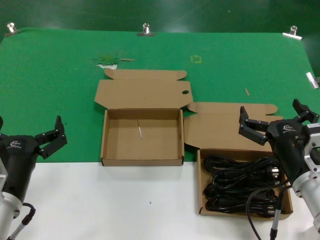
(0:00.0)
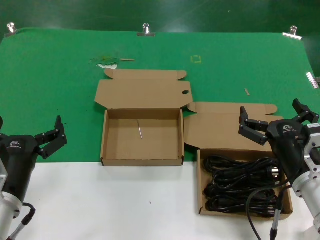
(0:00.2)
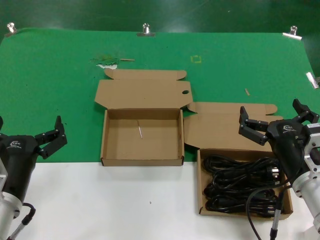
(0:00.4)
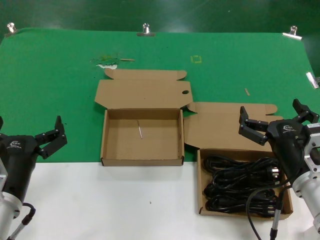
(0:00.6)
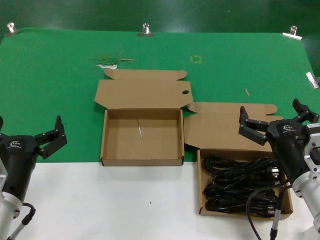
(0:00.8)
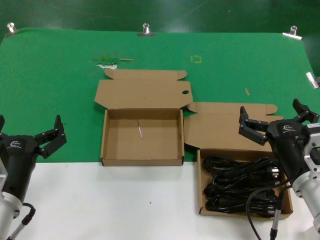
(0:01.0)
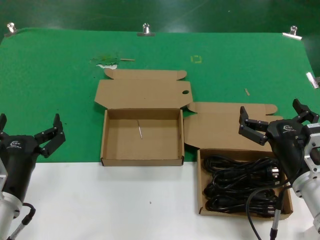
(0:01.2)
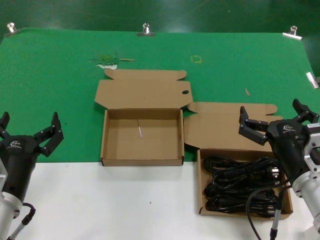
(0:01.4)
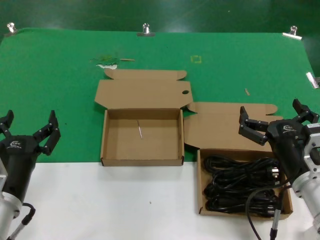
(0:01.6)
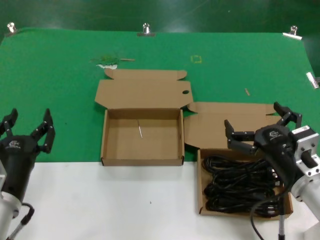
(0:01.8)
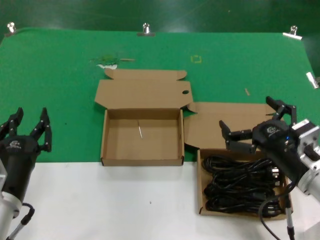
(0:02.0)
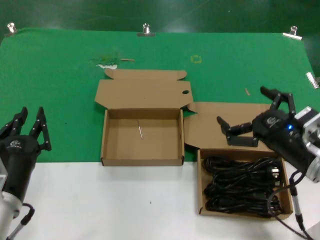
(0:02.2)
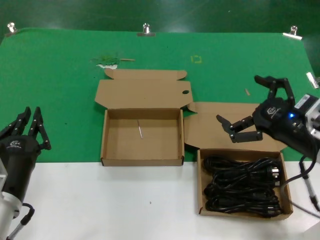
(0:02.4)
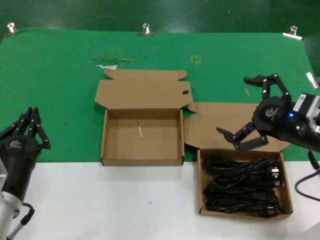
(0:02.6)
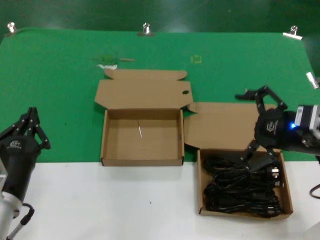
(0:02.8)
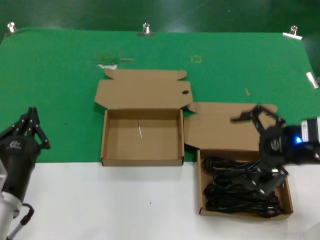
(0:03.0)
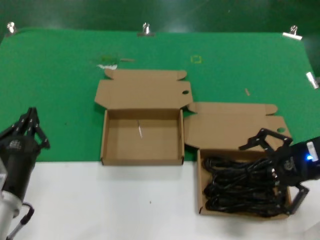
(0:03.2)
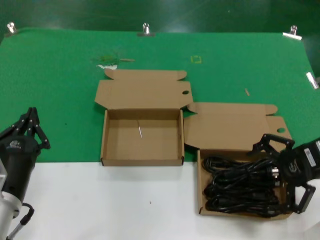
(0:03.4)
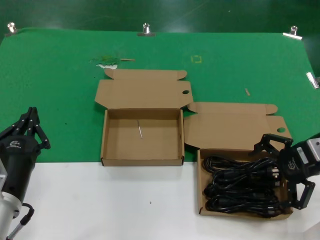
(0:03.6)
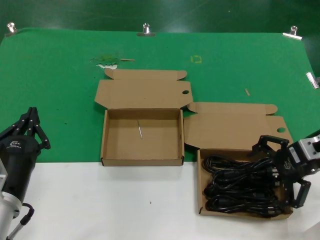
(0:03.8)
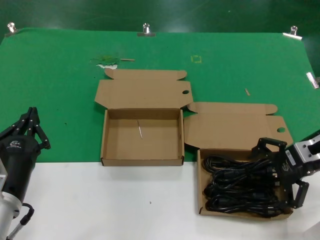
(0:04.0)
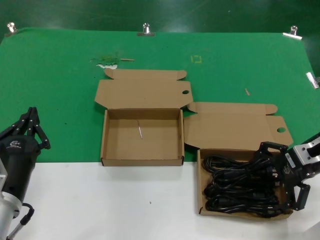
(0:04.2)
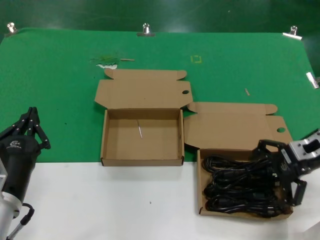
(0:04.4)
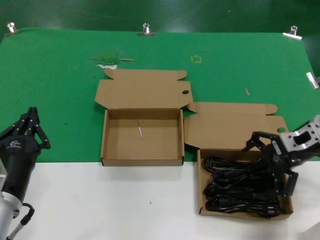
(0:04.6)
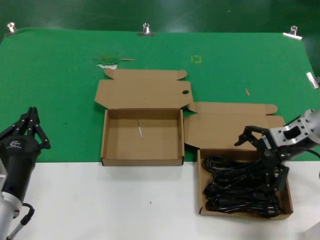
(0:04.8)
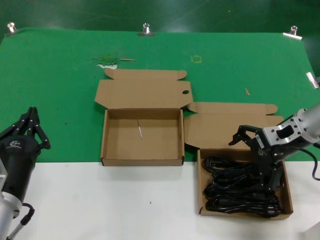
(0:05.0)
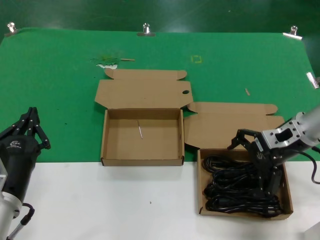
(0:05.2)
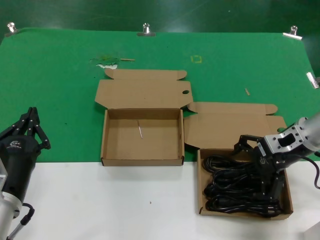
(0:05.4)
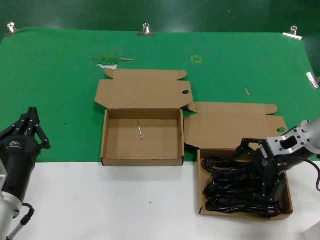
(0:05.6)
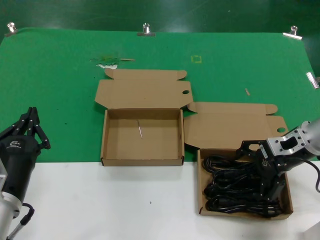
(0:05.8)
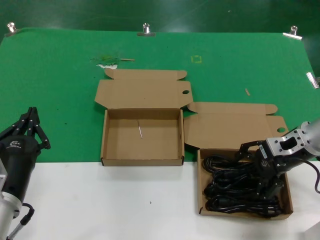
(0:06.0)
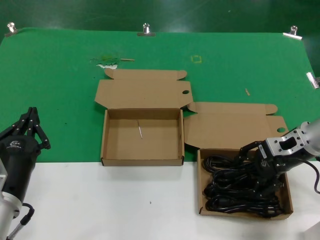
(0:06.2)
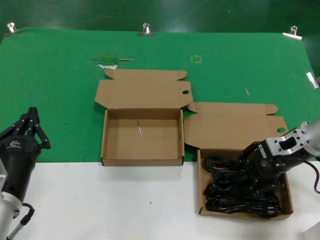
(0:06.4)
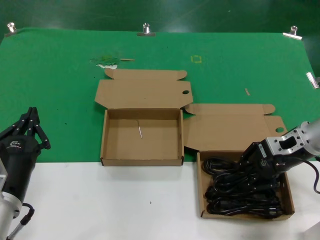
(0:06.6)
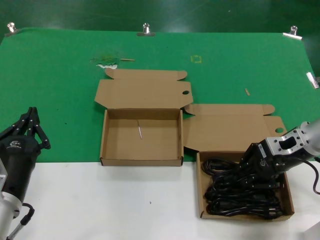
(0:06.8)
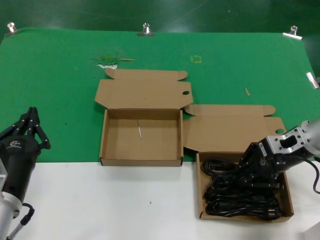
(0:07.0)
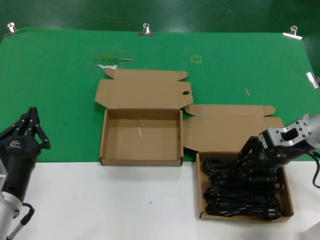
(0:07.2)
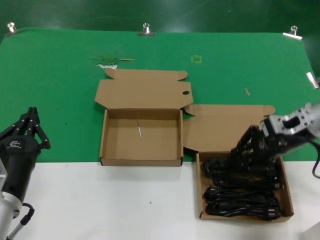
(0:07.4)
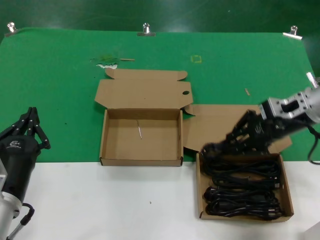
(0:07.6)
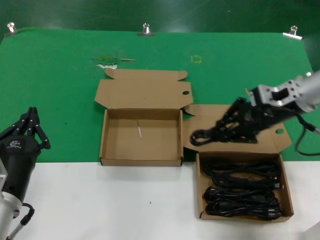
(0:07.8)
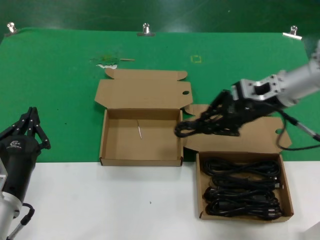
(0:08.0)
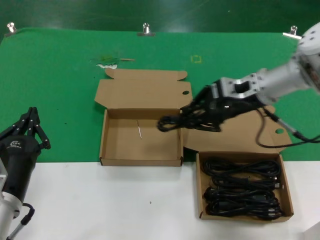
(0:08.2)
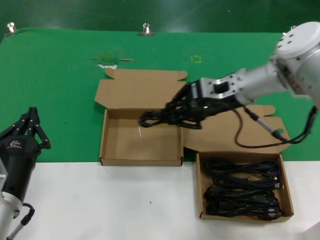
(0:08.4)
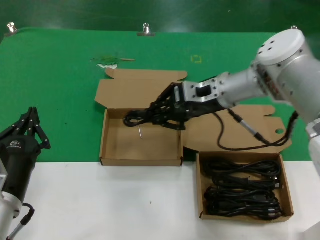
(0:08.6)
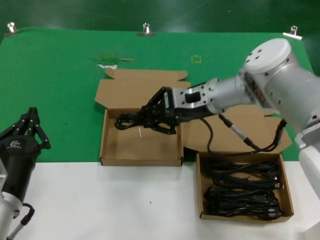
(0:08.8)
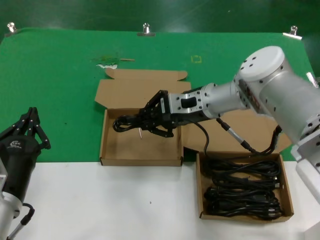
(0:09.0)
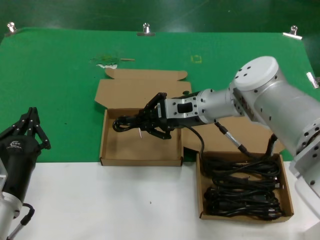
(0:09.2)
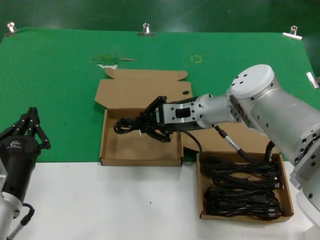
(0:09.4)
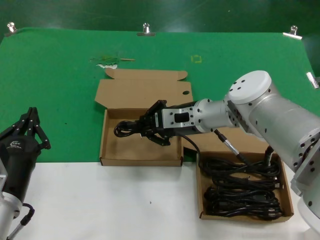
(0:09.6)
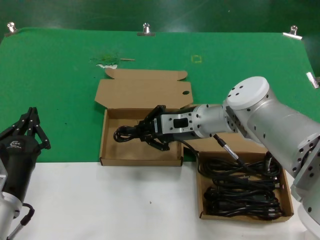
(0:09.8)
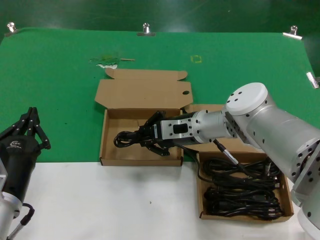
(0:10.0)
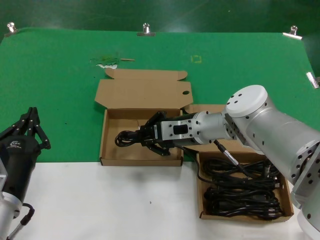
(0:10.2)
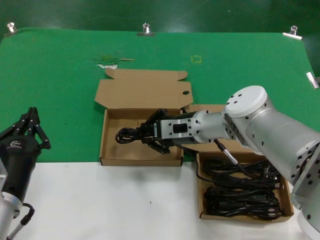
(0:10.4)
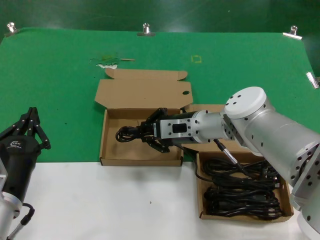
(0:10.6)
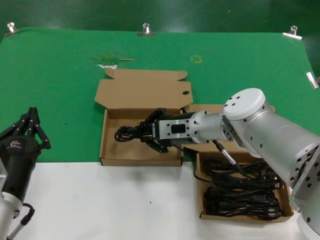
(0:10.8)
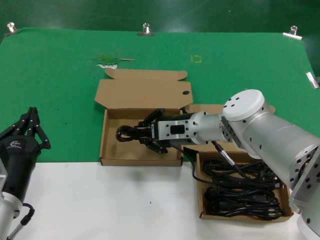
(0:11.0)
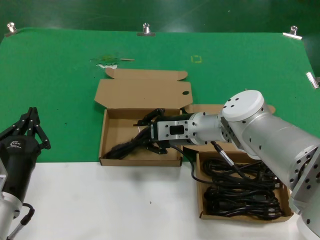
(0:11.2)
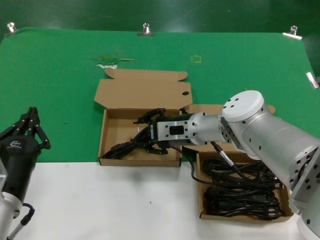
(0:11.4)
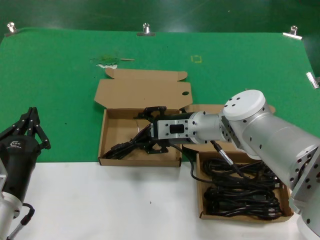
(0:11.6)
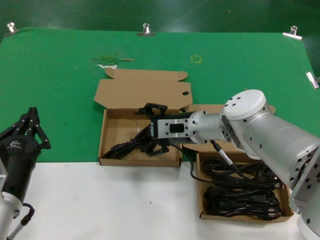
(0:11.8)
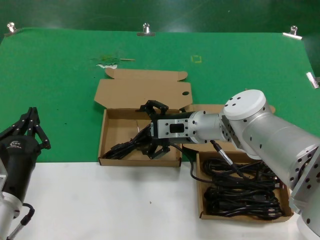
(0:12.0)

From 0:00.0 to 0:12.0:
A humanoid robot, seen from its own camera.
Task of the whole recording: take the parts from the box containing them and put them into an empty box.
Step, from 0:00.0 to 0:06.8: Grasp the data cable.
Step, from 0:07.0 to 0:11.2: Place the data cable in the another box.
From 0:00.0 to 0:01.6: Both hands stay put.
From 0:01.6 to 0:03.0: The right hand travels upward, to the right and forward by some 15 cm.
From 0:03.0 to 0:04.4: The right hand shifts about 10 cm forward and downward.
From 0:04.4 to 0:06.0: There are only small adjustments of the hands.
From 0:06.0 to 0:07.6: The right hand moves upward, roughly 5 cm.
From 0:07.6 to 0:09.0: The right hand travels to the left by about 20 cm.
From 0:09.0 to 0:10.4: The right hand moves downward, some 5 cm.
From 0:10.4 to 0:12.0: Both hands stay about where they are.

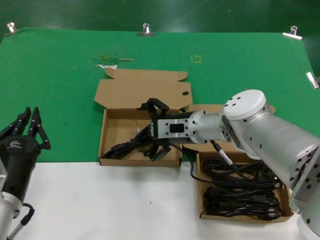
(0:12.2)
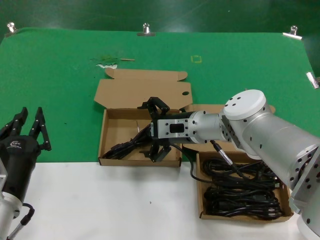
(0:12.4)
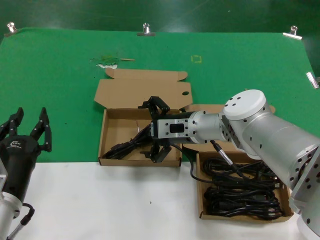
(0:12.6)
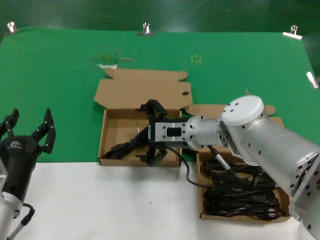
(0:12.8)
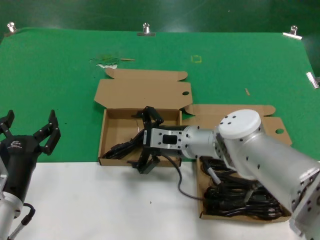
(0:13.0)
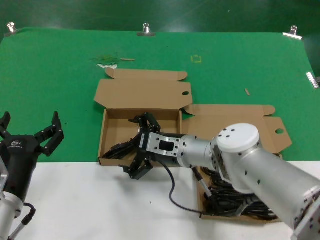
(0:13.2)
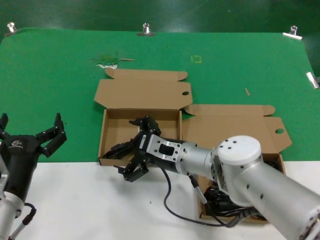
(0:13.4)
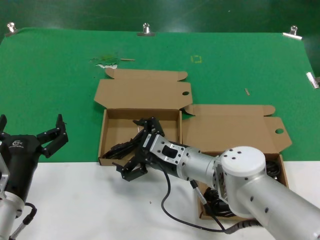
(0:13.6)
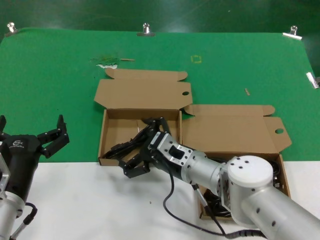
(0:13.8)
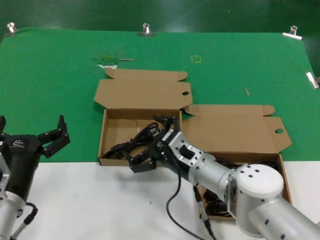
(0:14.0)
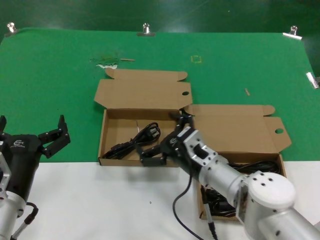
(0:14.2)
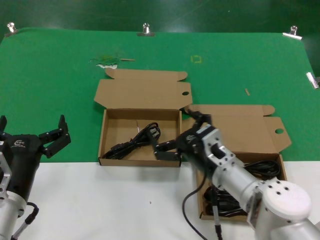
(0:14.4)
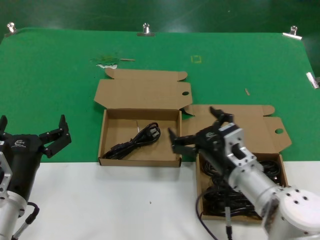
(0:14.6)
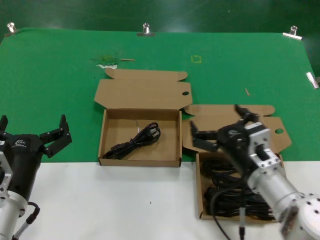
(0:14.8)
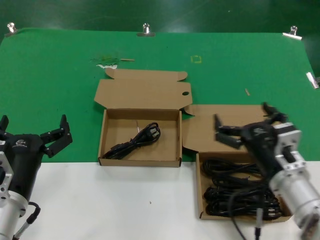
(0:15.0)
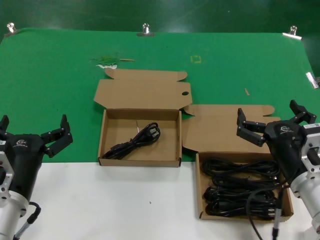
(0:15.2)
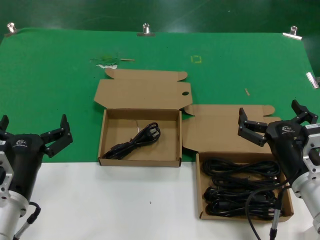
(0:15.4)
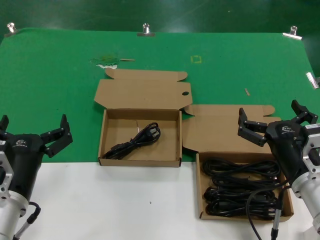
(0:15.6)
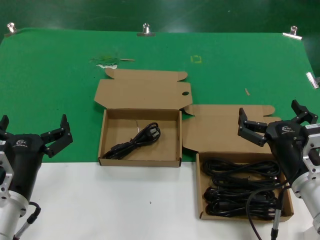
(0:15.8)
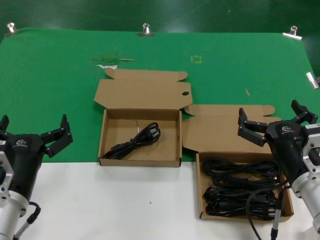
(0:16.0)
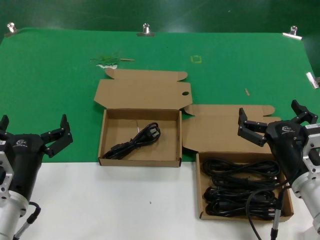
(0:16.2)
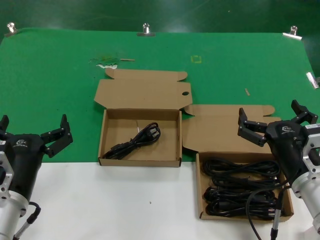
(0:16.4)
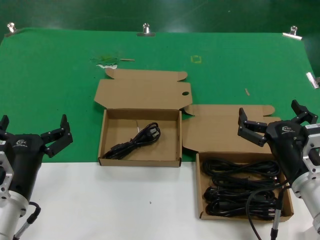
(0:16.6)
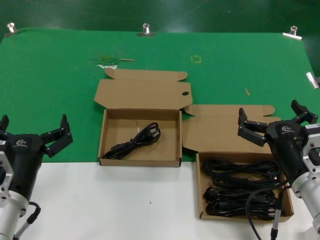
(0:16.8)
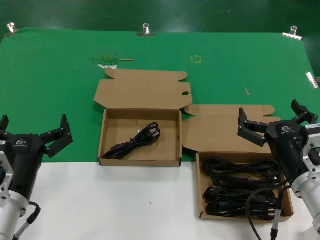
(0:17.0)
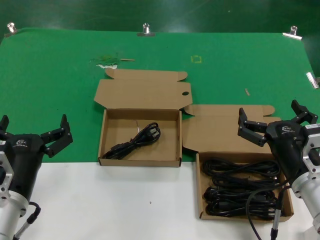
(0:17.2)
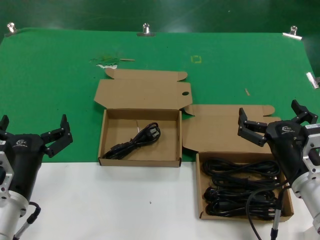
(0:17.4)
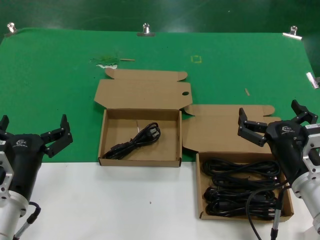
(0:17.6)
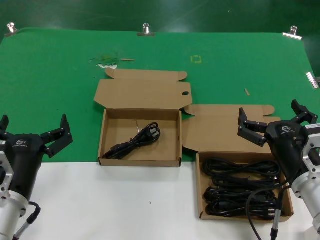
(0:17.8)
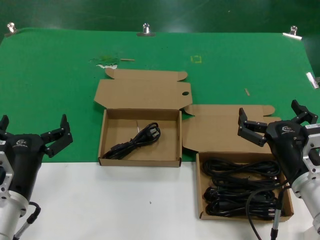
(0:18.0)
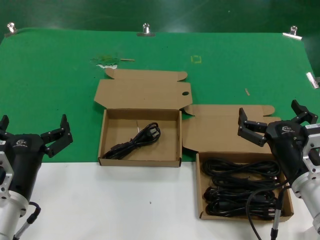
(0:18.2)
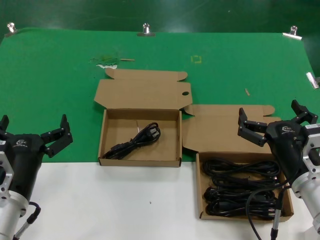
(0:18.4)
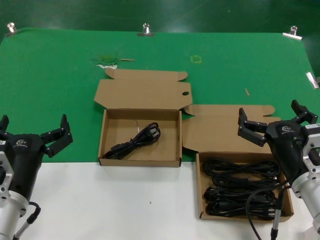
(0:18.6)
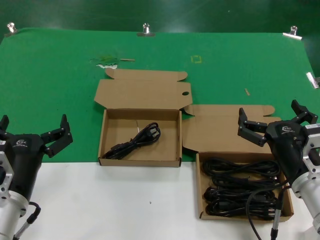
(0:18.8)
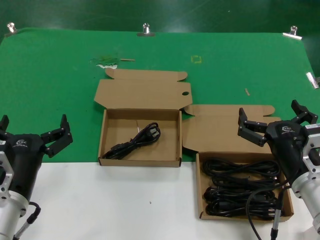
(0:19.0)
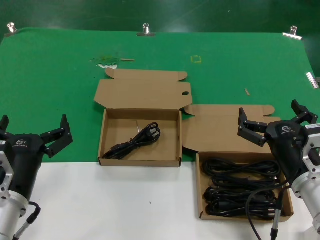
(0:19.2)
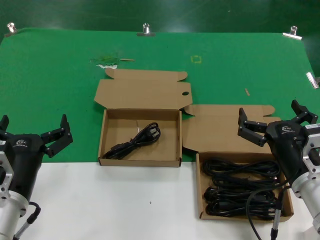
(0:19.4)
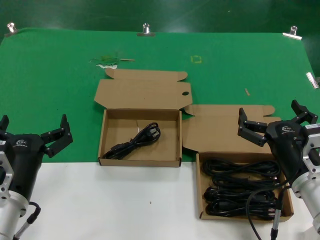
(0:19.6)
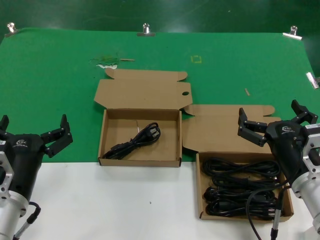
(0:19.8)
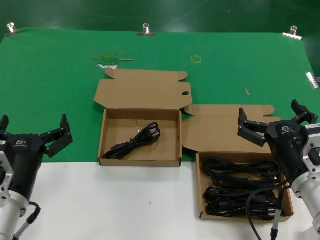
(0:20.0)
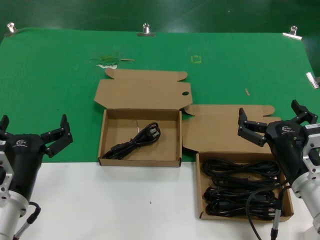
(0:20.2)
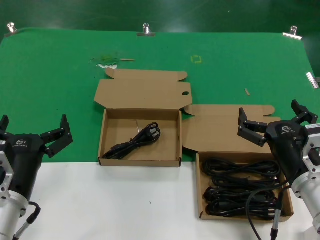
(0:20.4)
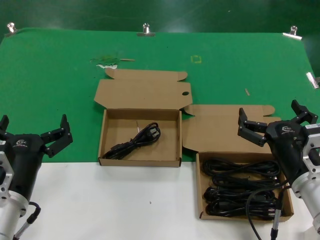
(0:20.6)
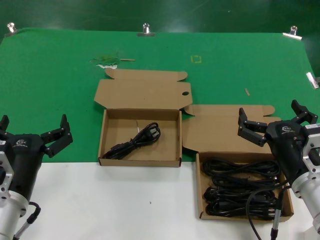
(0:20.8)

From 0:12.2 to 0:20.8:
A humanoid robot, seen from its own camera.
Task of the whole recording: take the parts from the box containing them and put them into an empty box.
From 0:12.2 to 0:13.6: The right hand travels backward and downward by some 10 cm.
From 0:13.6 to 0:15.0: The right hand moves to the right and backward, approximately 15 cm.
From 0:15.0 to 0:16.6: The hands make only small movements.
From 0:16.6 to 0:20.8: Both hands stay put.

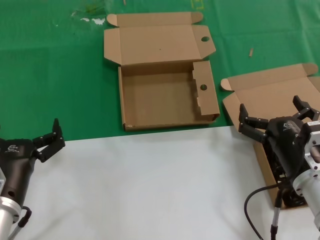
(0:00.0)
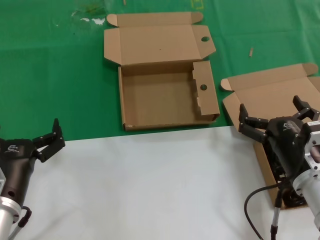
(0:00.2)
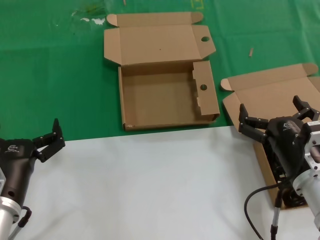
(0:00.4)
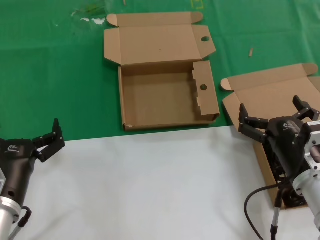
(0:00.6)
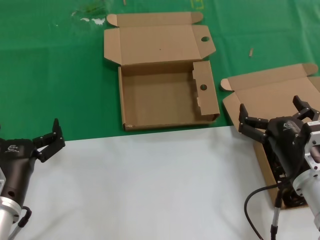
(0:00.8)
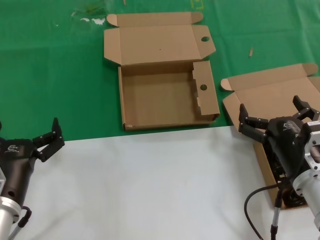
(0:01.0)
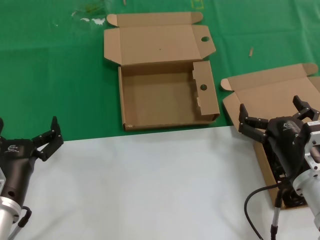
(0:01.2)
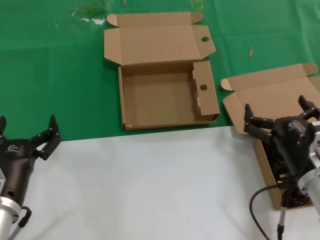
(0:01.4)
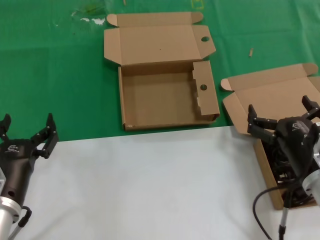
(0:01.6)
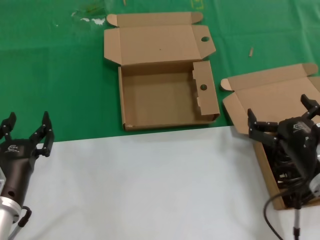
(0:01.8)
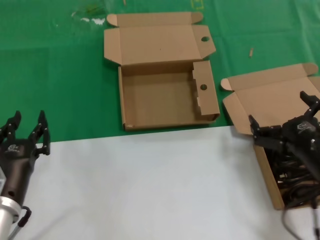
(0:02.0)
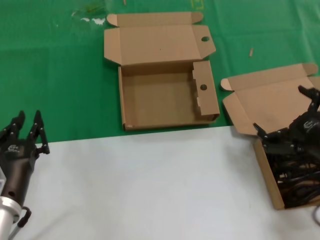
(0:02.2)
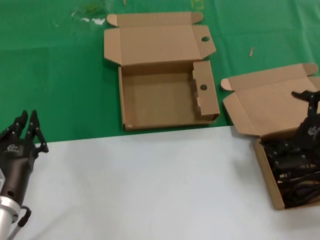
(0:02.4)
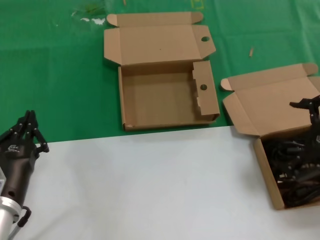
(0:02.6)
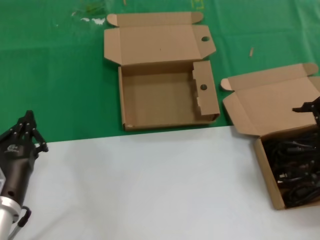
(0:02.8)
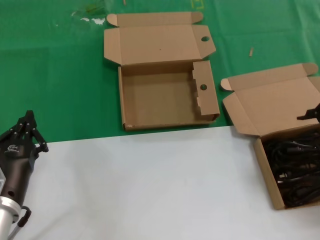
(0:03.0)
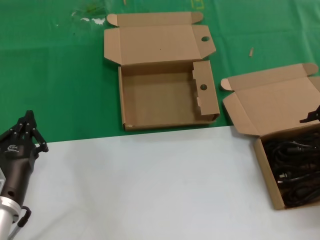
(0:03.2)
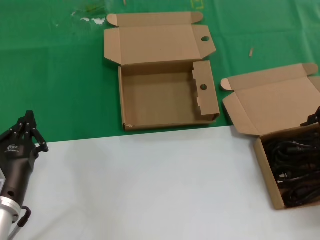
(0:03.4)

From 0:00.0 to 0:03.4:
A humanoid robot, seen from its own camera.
Task of the whole recording: take the parts from the box containing them and put them into an empty box.
From 0:00.0 to 0:01.6: The hands move only a little.
From 0:01.6 to 0:03.4: The right hand travels upward and to the right by about 25 cm.
